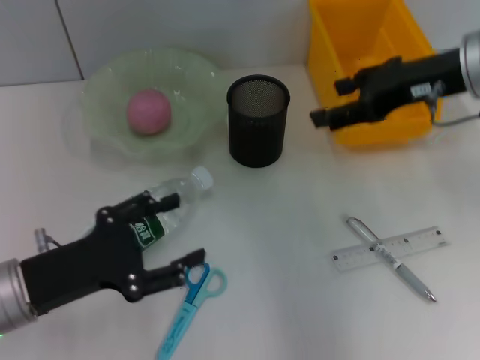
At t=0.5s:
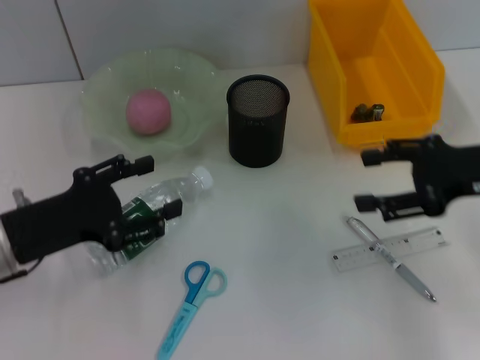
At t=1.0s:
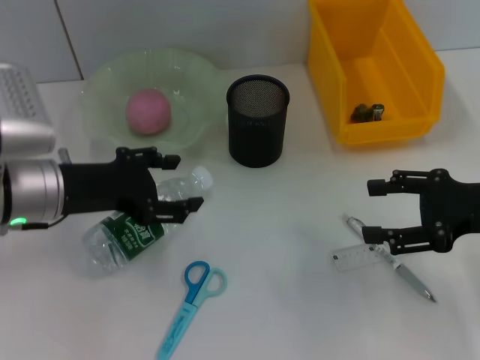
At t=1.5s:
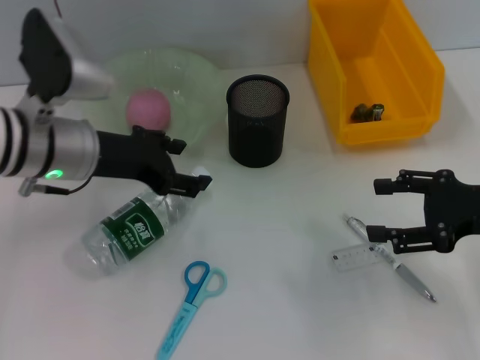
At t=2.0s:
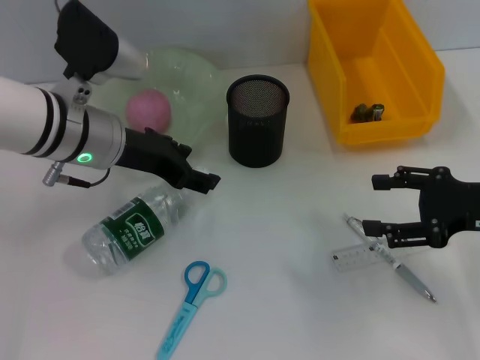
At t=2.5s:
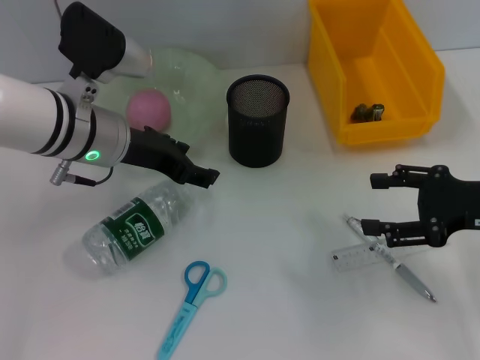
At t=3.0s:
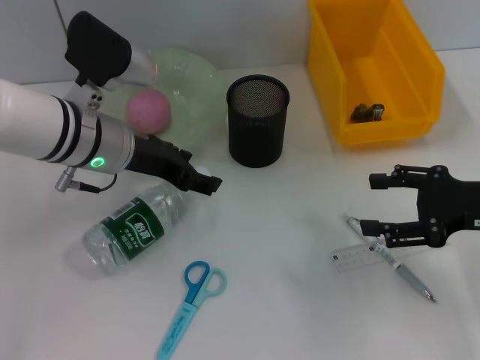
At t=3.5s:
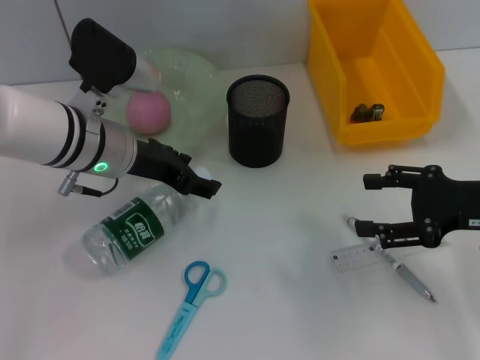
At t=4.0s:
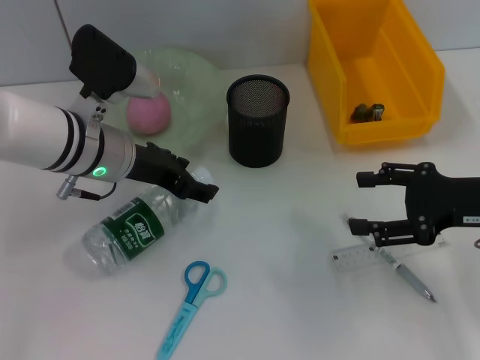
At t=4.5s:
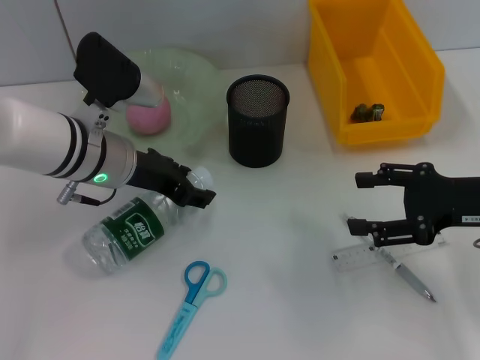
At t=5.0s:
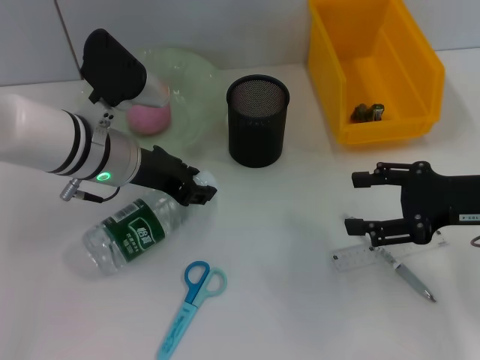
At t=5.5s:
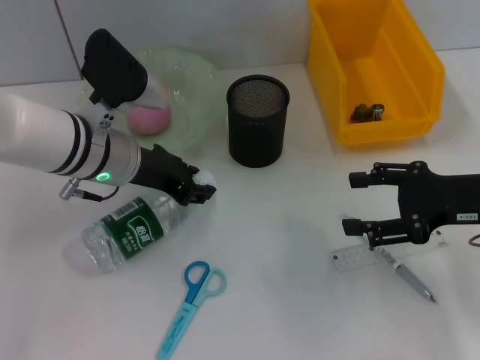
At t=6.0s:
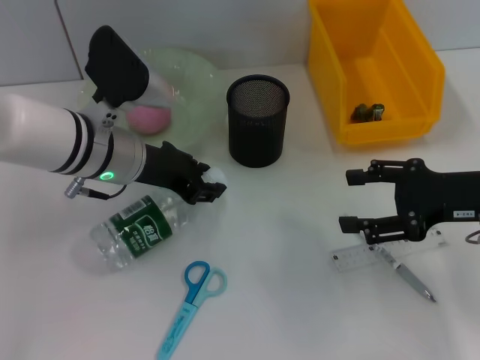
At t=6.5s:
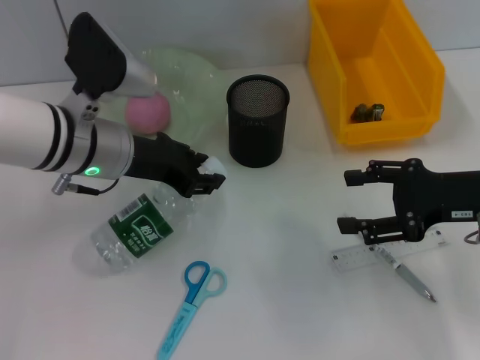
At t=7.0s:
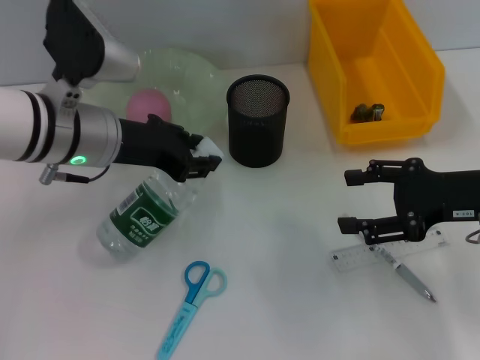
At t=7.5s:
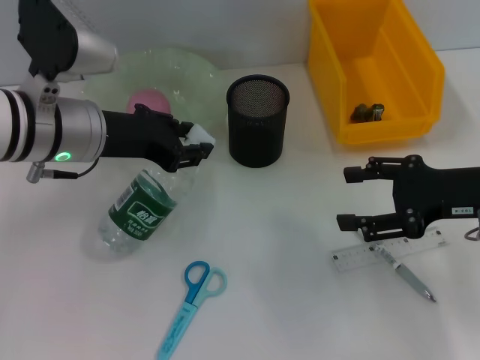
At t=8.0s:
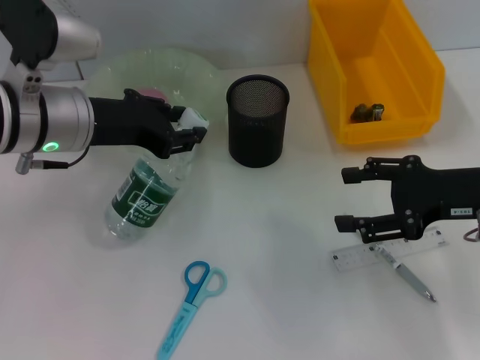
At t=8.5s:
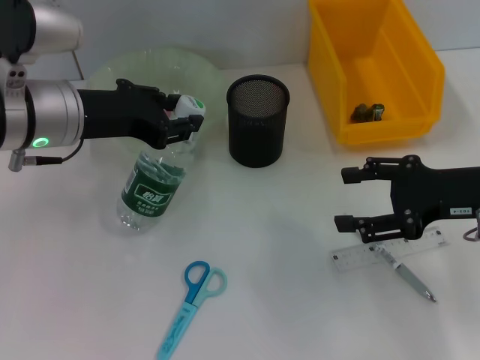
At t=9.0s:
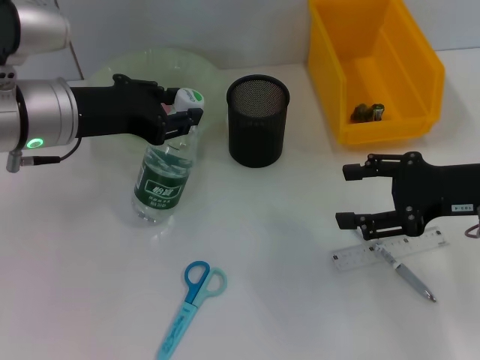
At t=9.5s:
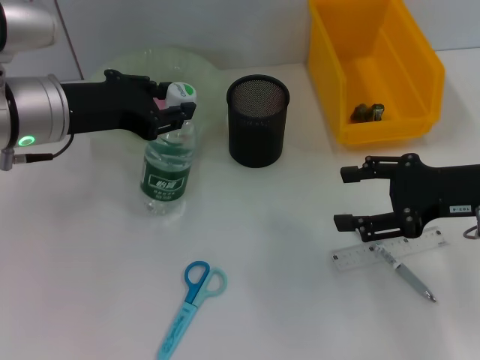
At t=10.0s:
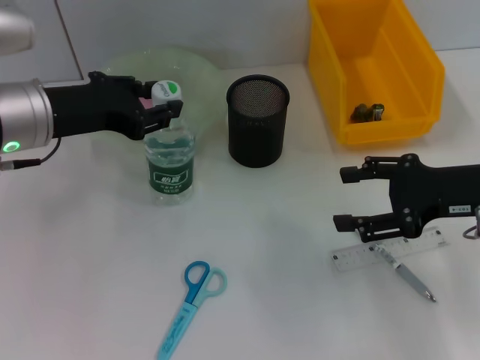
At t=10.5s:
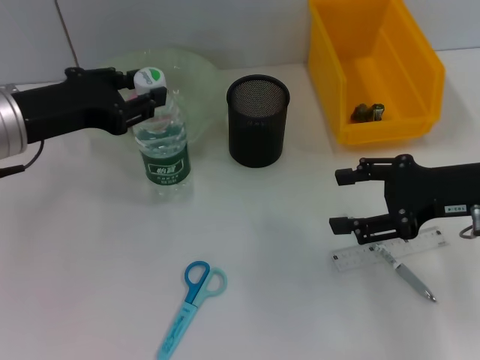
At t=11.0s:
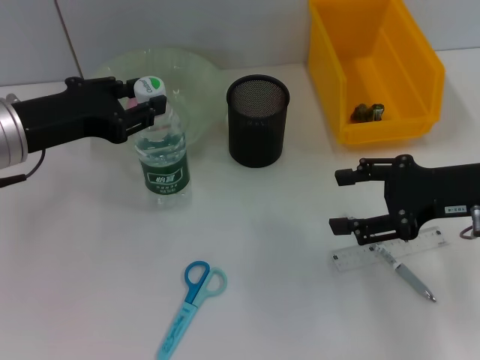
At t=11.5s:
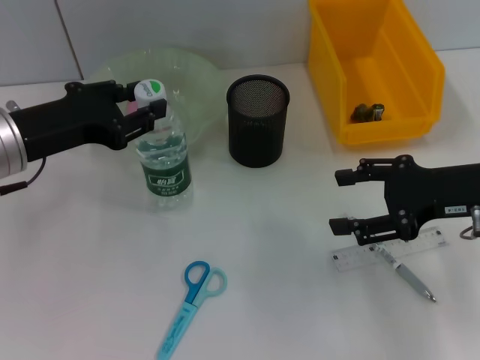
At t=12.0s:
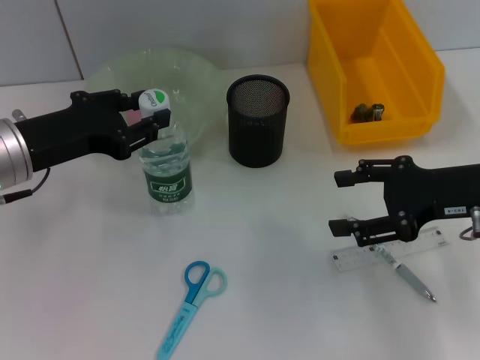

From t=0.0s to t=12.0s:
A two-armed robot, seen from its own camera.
Step, from t=0.0s to t=5.5s: Grab the water bottle with the left hand.
From t=0.0s to t=2.0s: The right gripper shifts approximately 15 cm downward, backward and to the right, while the left gripper shifts some 20 cm forward, to the right and upward.
From t=2.0s to t=4.0s: The grippers make only small movements.
From t=4.0s to t=6.0s: The left gripper closes its fingers.
From t=6.0s to t=8.0s: The left gripper goes about 5 cm upward.
From t=8.0s to t=10.0s: The grippers stay close to where they were, moving slightly.
From t=10.0s to t=12.0s: The grippers make only small movements.

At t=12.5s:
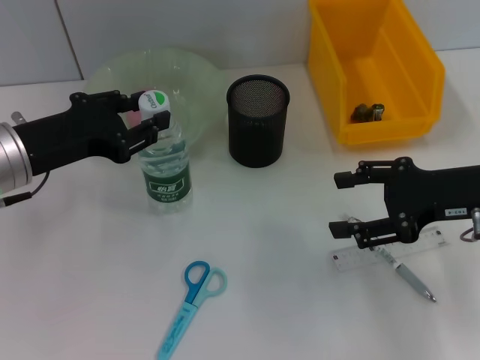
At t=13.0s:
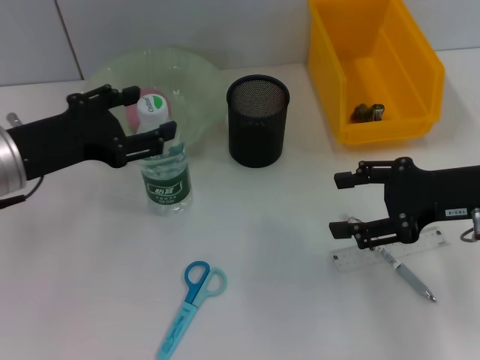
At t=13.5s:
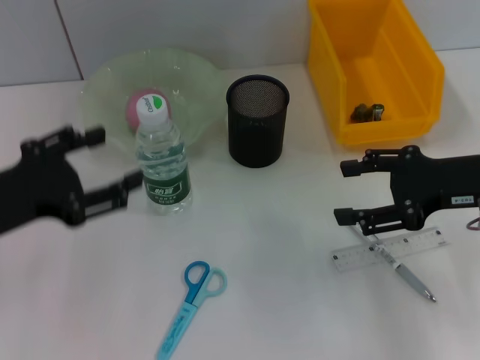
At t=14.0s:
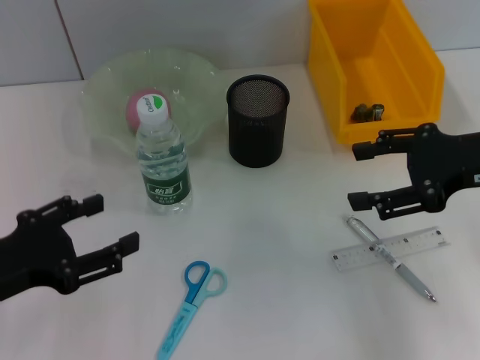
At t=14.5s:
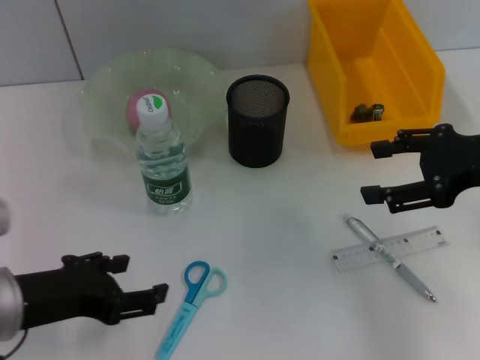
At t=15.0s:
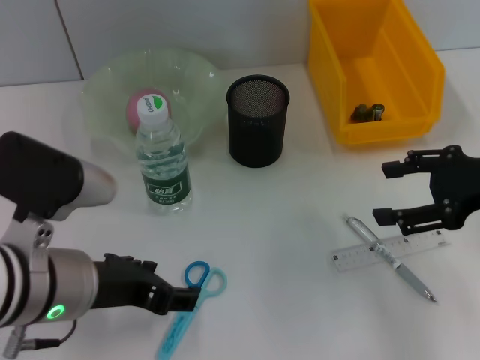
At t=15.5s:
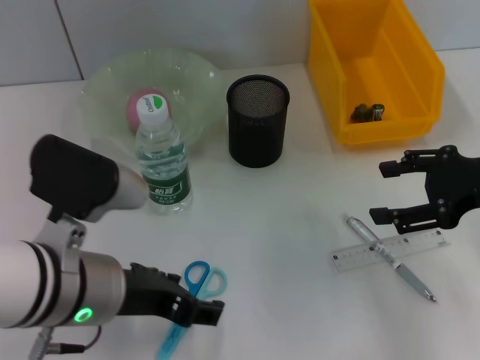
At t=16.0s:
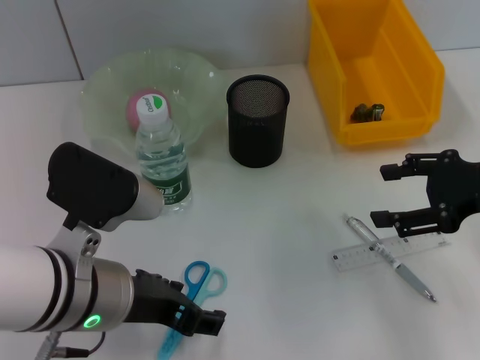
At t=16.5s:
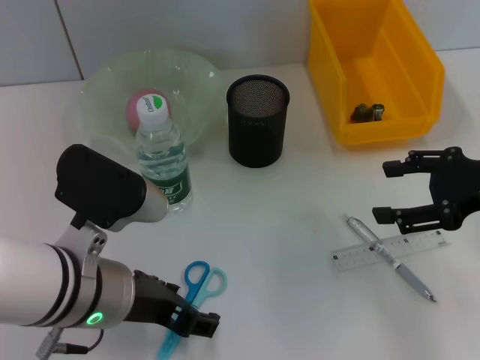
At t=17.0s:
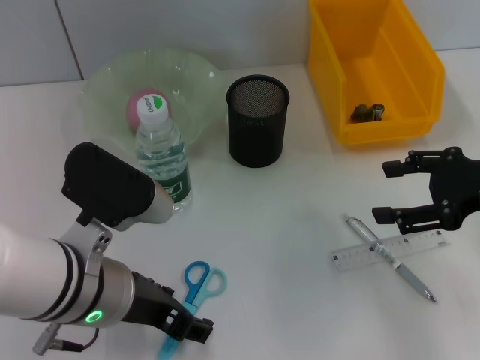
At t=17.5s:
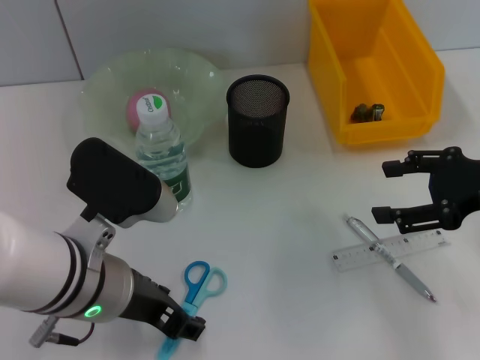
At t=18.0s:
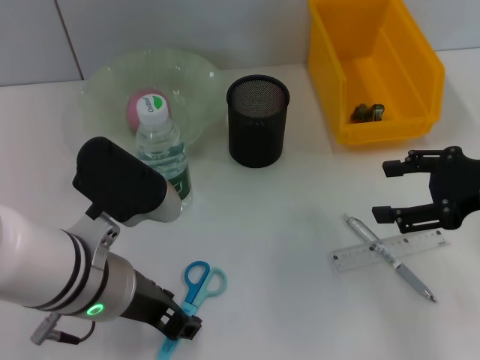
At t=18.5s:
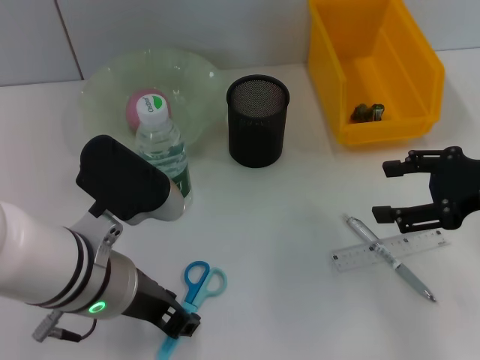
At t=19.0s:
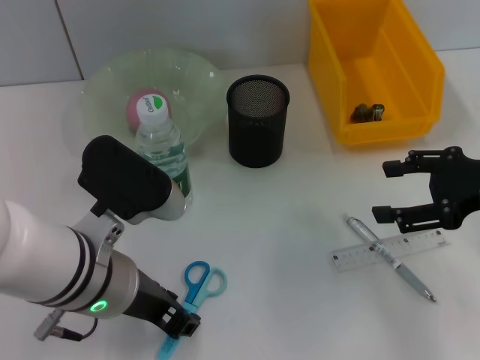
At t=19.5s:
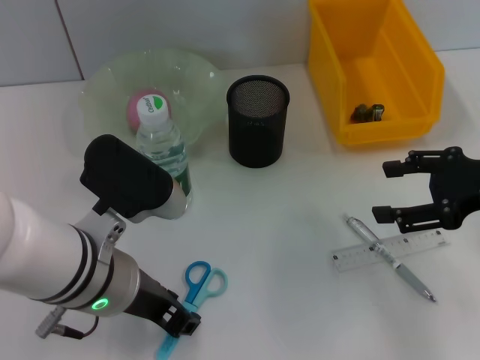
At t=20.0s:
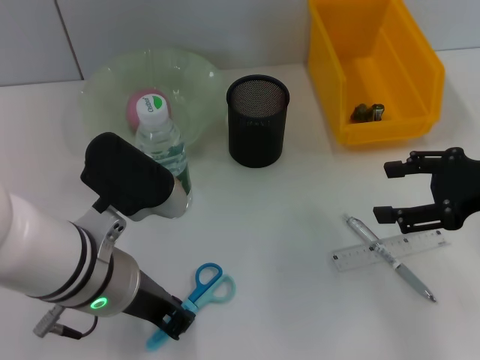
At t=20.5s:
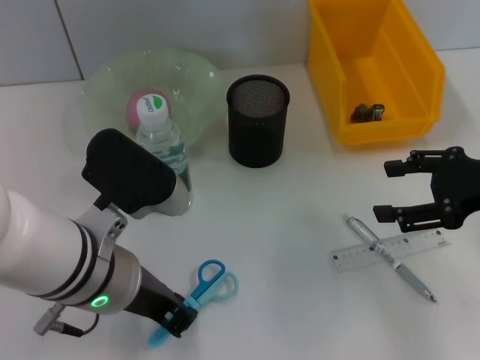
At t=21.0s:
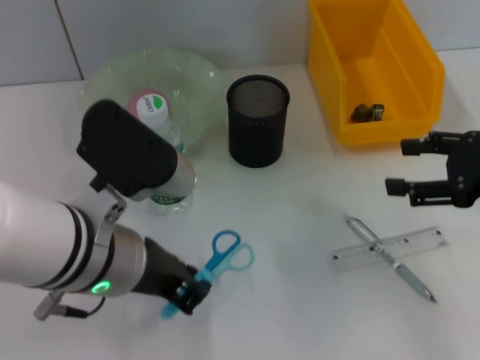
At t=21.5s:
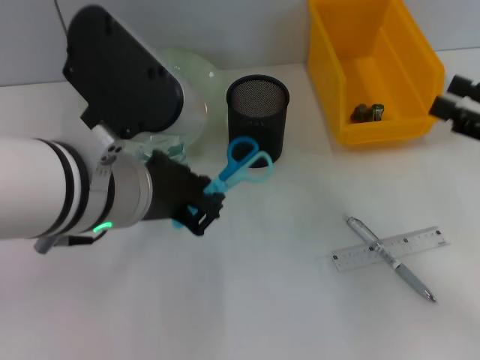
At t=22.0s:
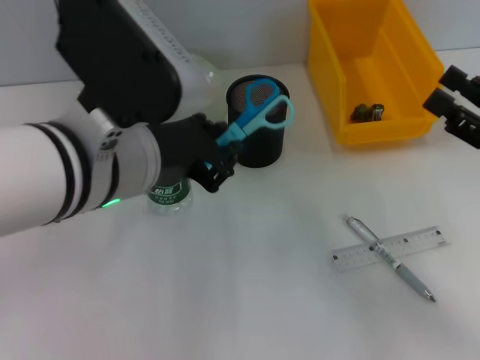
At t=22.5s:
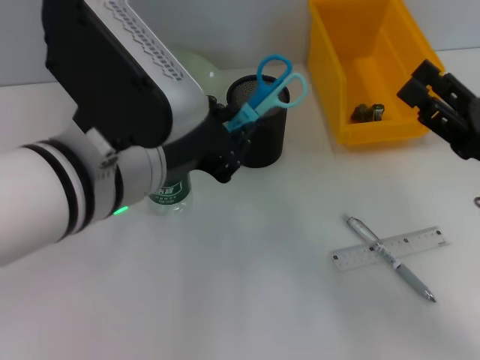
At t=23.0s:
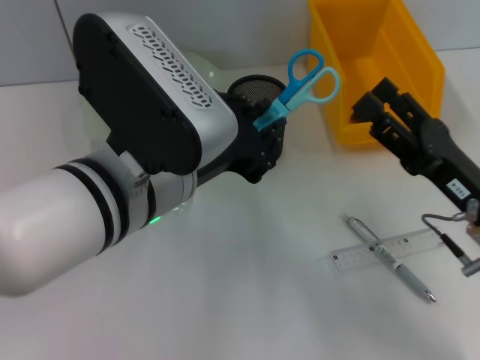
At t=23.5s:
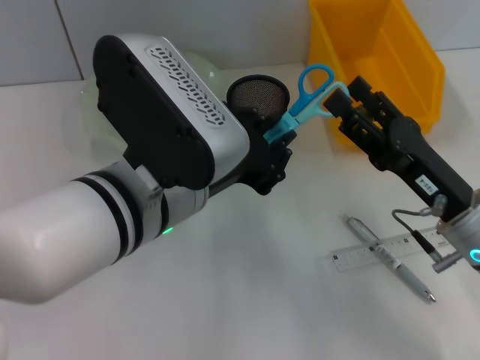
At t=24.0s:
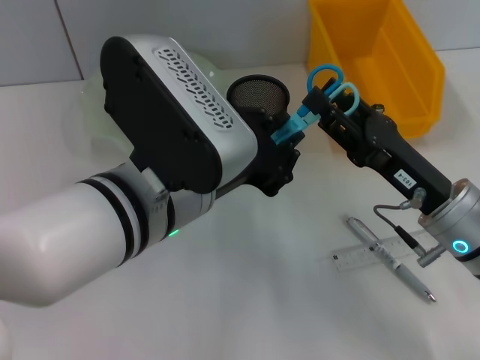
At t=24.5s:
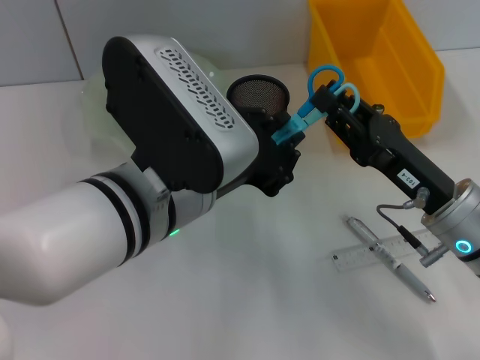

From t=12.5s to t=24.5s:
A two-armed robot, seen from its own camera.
Step, from t=13.5s to t=20.0s: Grab the blue scissors with the left hand.
From t=12.5s to t=14.5s: The left gripper is displaced backward by approximately 10 cm, and opens its fingers.
From t=14.5s to t=16.5s: The left gripper travels to the right by approximately 10 cm.
From t=16.5s to t=18.5s: The left gripper closes up.
From t=18.5s to t=20.5s: The left gripper closes.
From t=20.5s to t=22.5s: The right gripper goes some 5 cm downward. The left gripper moves upward, roughly 10 cm.
From t=22.5s to t=24.5s: The right gripper is displaced to the left by approximately 10 cm, and closes up.

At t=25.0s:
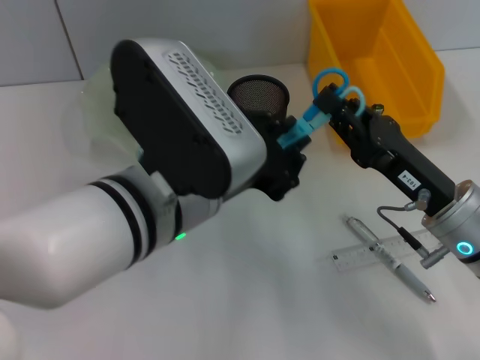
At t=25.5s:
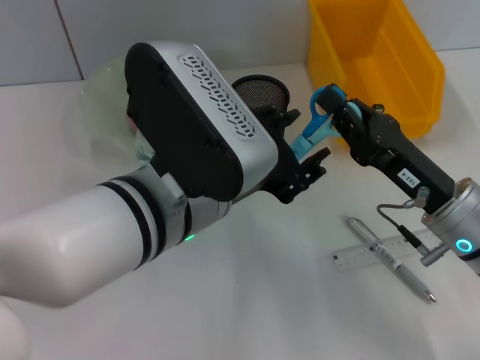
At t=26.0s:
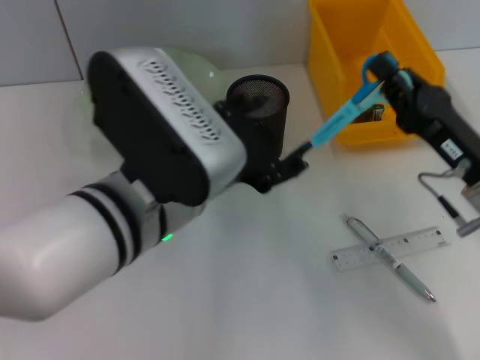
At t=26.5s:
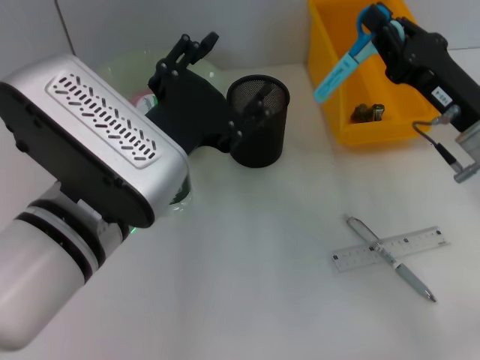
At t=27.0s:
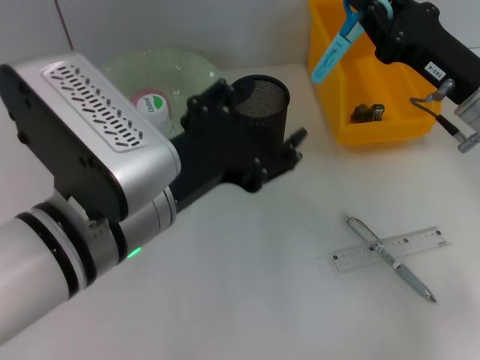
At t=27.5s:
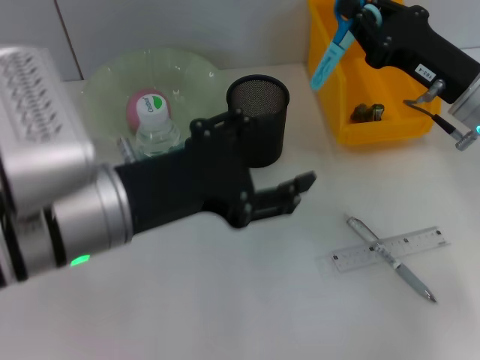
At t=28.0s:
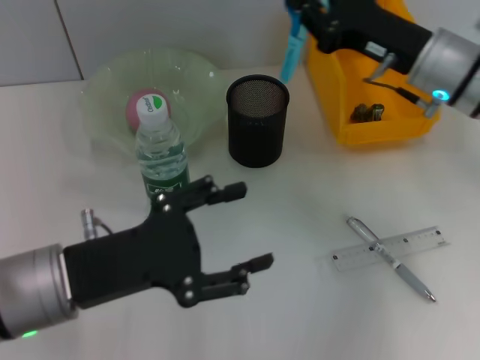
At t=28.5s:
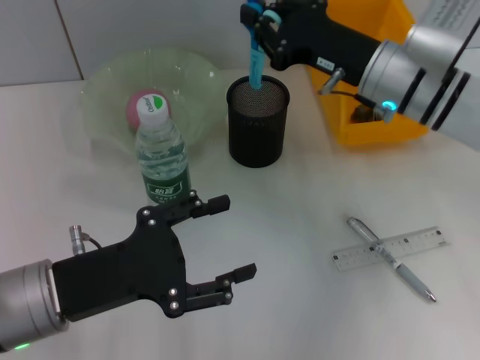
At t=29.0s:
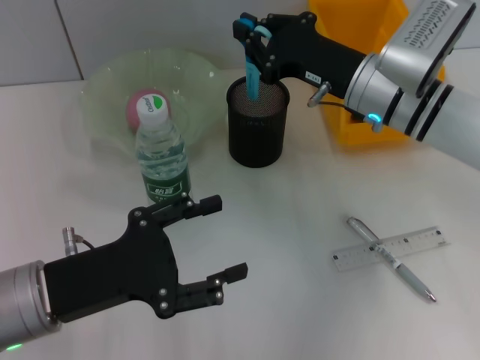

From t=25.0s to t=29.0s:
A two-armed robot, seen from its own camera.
From t=25.0s to t=27.0s: The right gripper heads forward and upward, covering about 10 cm; the left gripper opens its fingers.
From t=27.0s to t=29.0s: The left gripper goes roughly 15 cm to the left and downward. The right gripper travels to the left and forward by about 10 cm.
